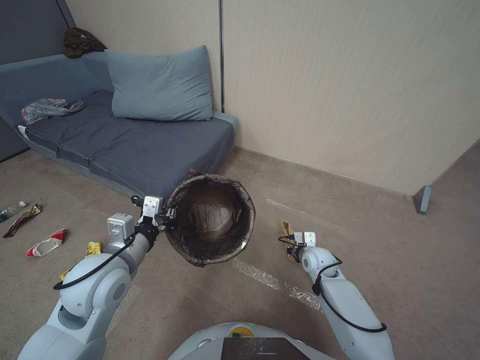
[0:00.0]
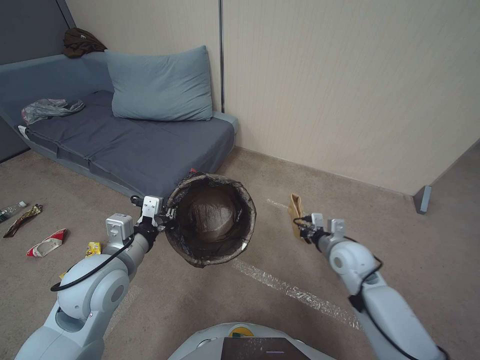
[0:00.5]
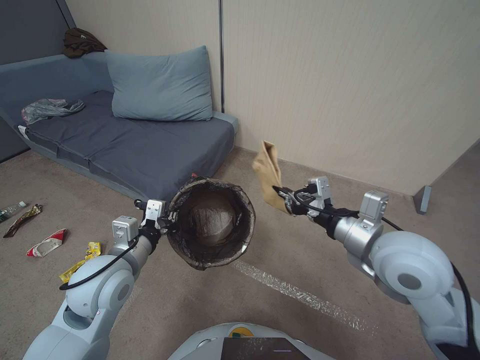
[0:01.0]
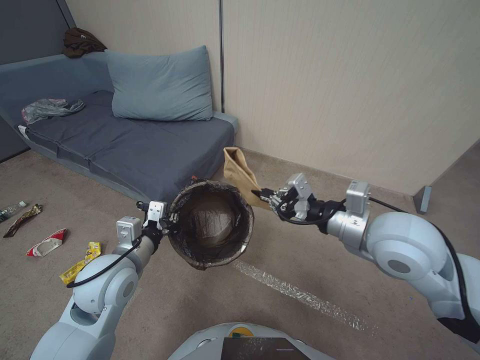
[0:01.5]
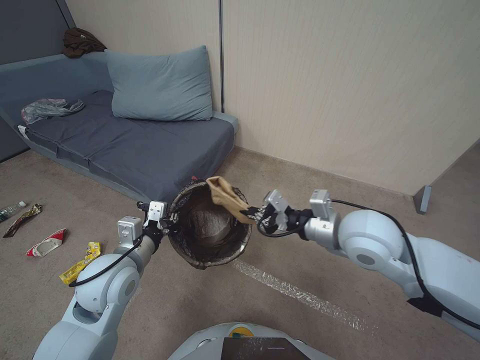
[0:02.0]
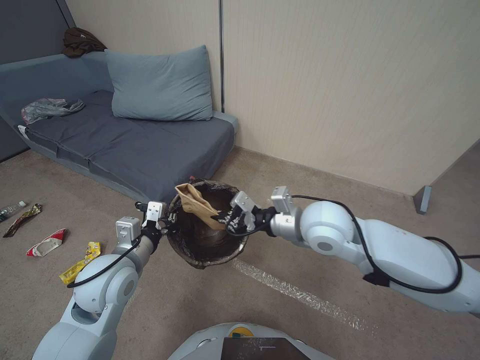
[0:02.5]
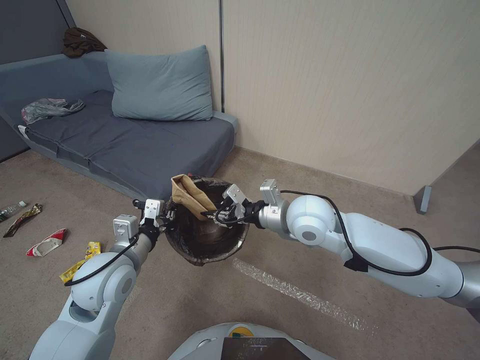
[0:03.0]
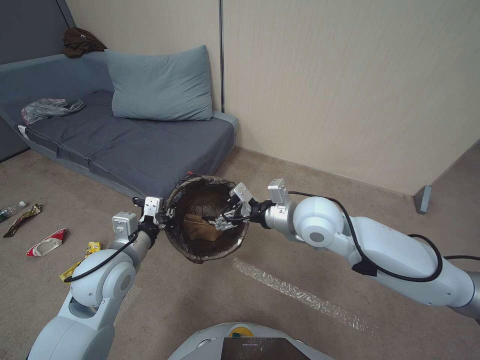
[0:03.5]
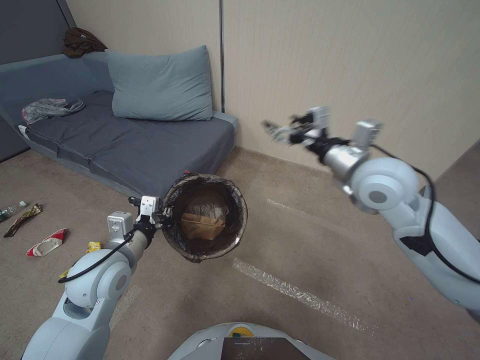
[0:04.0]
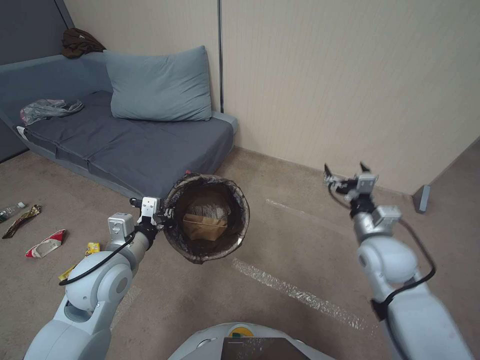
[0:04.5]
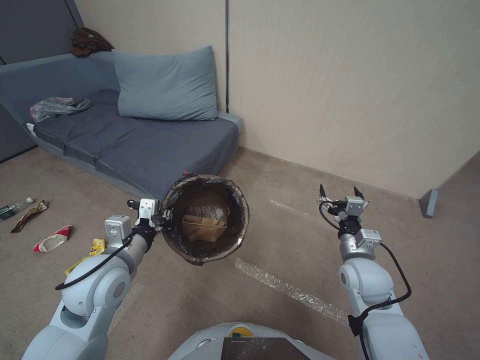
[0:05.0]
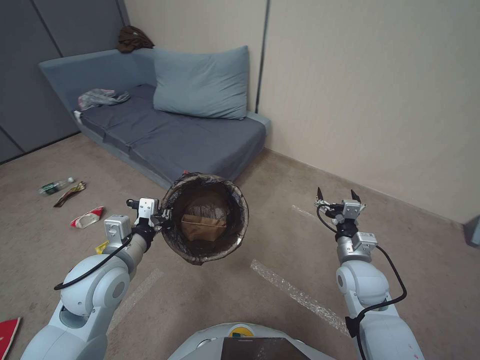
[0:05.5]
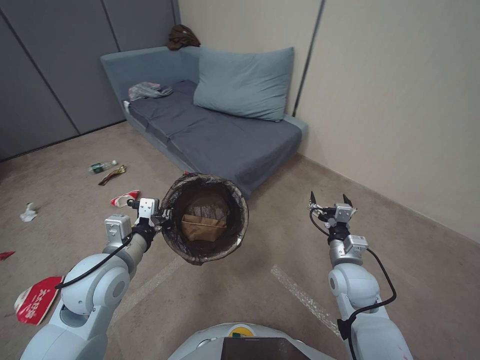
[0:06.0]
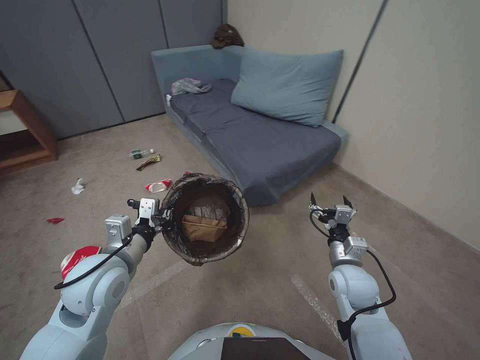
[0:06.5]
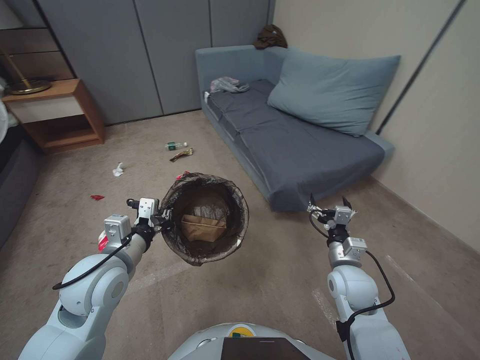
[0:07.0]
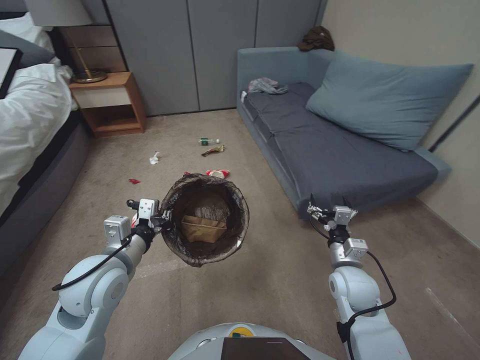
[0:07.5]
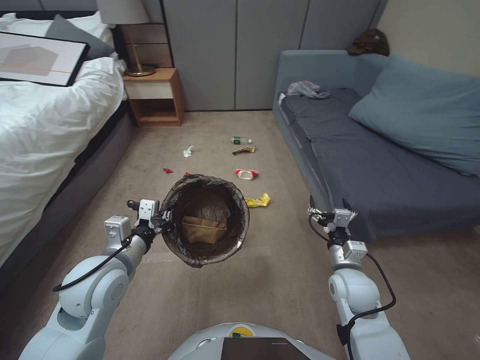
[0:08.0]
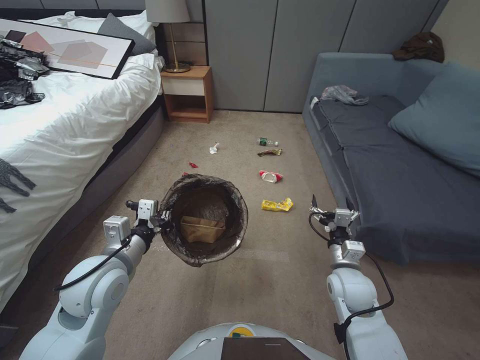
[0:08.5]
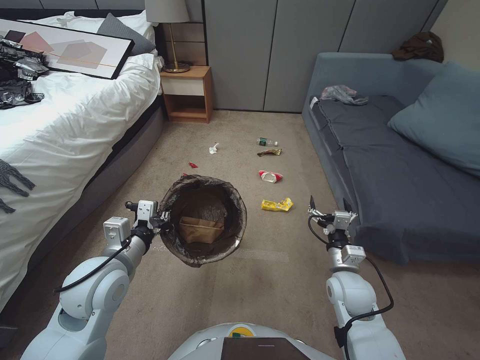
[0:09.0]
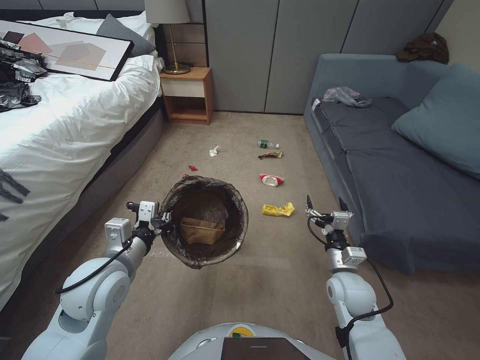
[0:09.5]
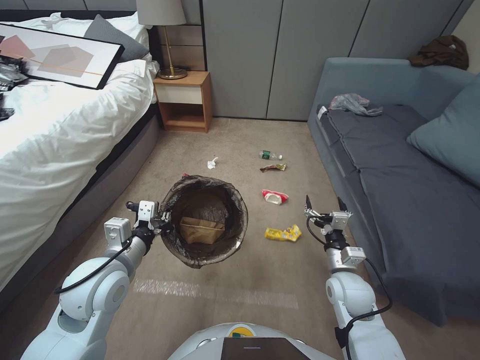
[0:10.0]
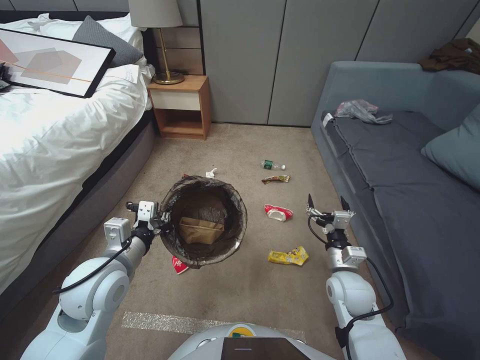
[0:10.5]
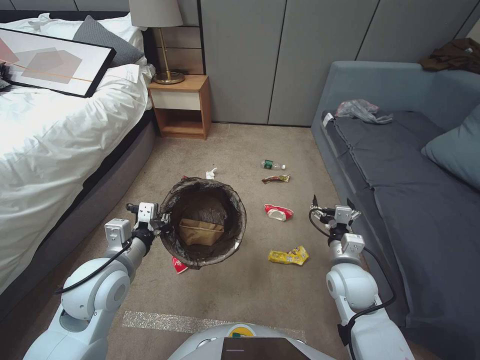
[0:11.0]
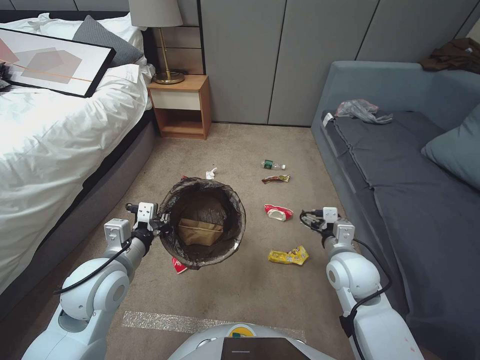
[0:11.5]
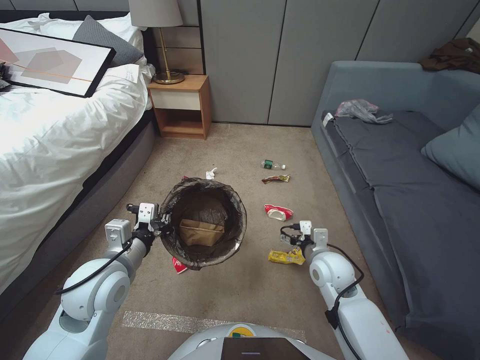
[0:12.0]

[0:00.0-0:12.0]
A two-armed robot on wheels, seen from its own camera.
Task of the whole recording: Pick up the trash bin, then pick up the garbage from the floor and place it into the trash bin.
0:00.0 to 0:02.0: The right gripper shifts about 30 cm upward.
0:02.0 to 0:04.0: The right gripper travels forward and to the left by roughly 10 cm, and opens its fingers.
0:04.0 to 0:06.0: The right gripper is displaced downward and to the right by roughly 25 cm.
0:10.0 to 0:12.0: The right gripper shifts by some 5 cm.

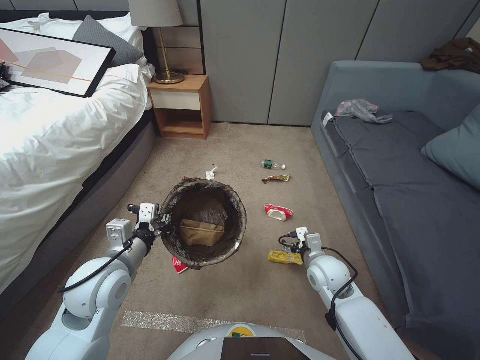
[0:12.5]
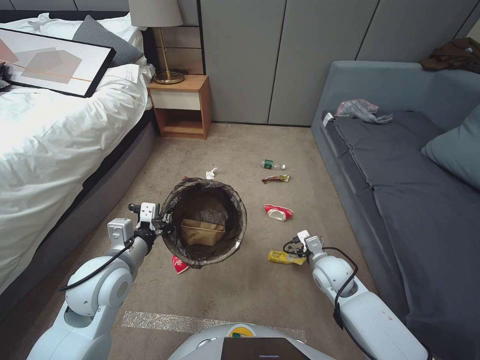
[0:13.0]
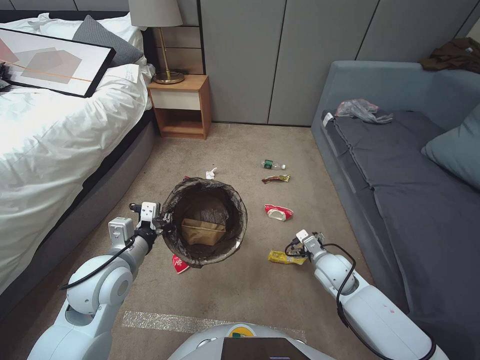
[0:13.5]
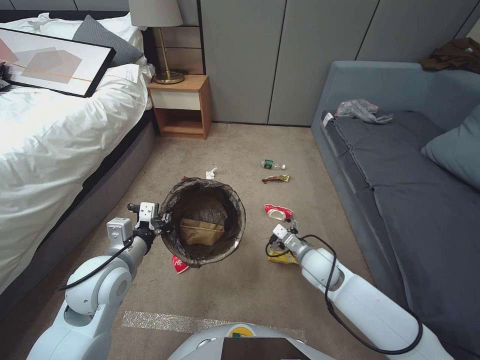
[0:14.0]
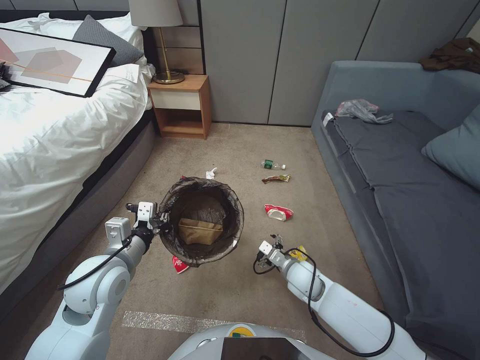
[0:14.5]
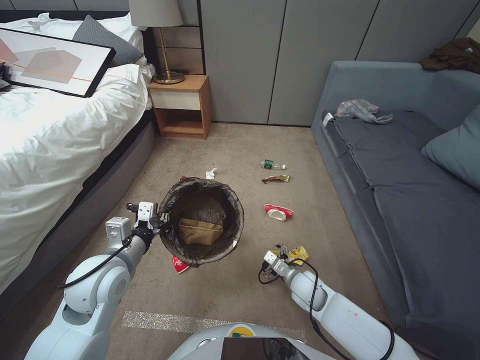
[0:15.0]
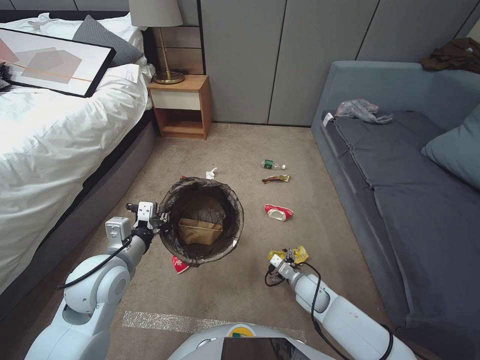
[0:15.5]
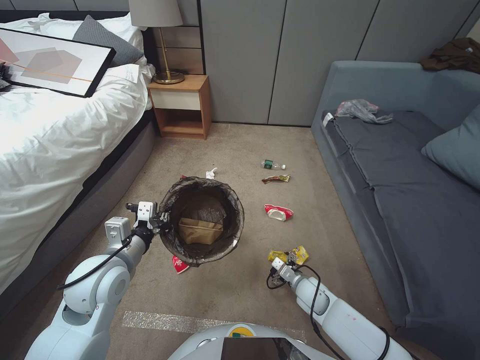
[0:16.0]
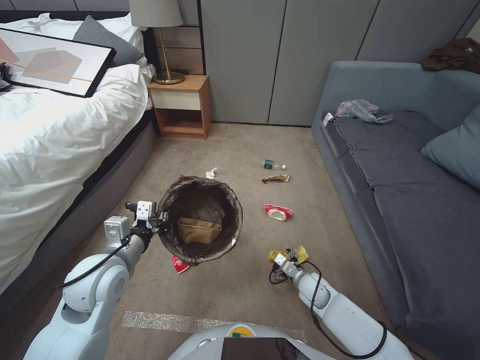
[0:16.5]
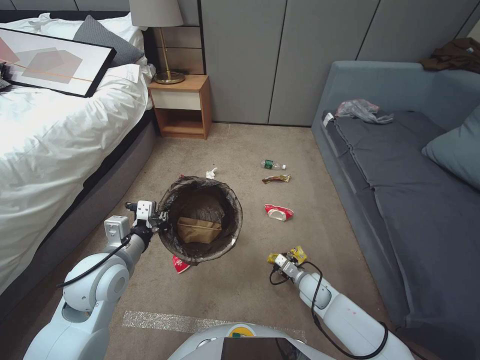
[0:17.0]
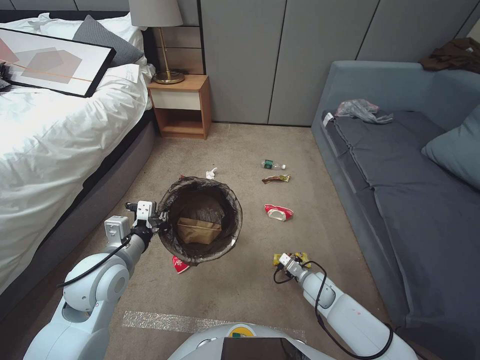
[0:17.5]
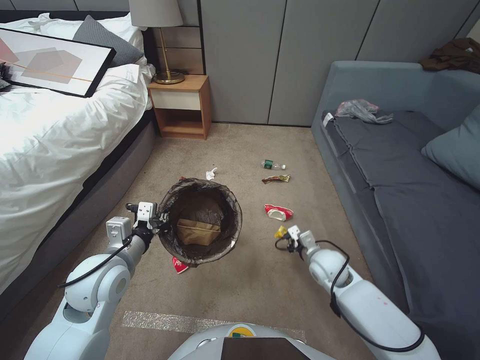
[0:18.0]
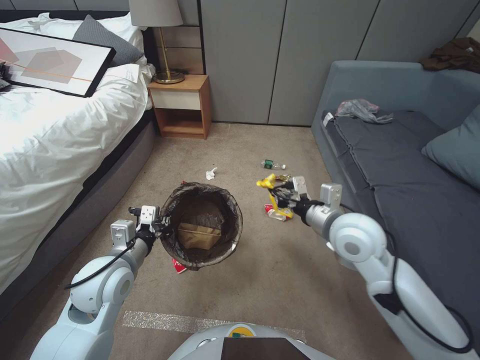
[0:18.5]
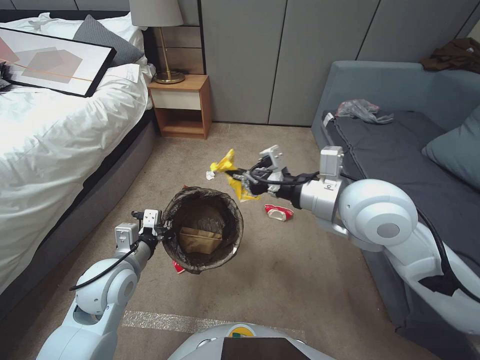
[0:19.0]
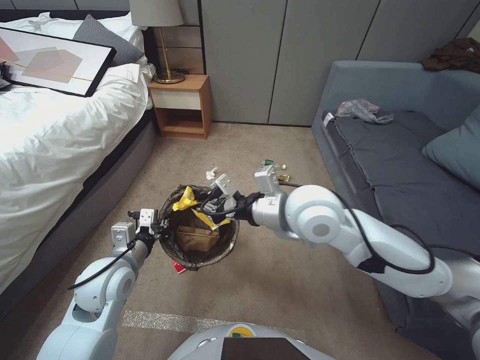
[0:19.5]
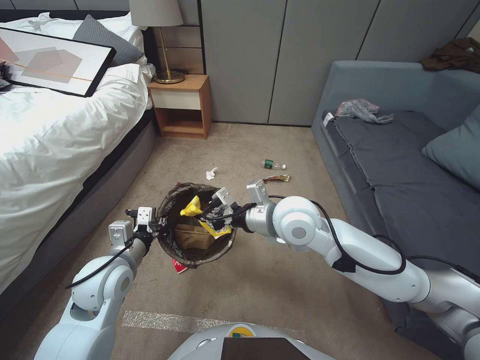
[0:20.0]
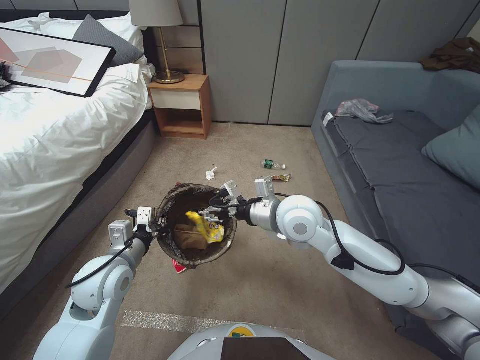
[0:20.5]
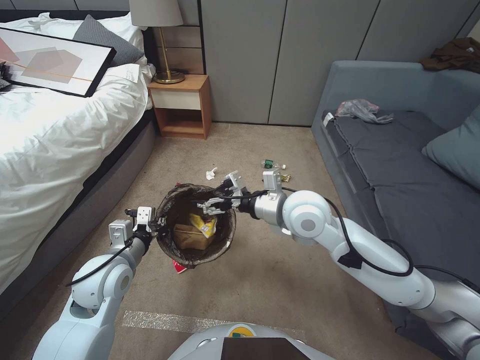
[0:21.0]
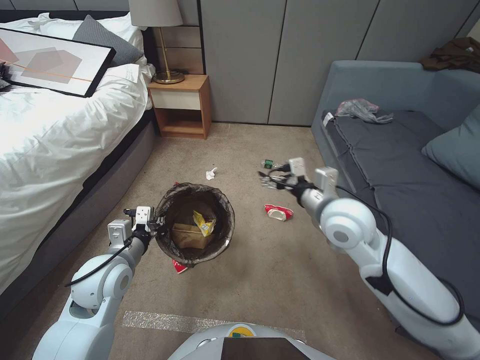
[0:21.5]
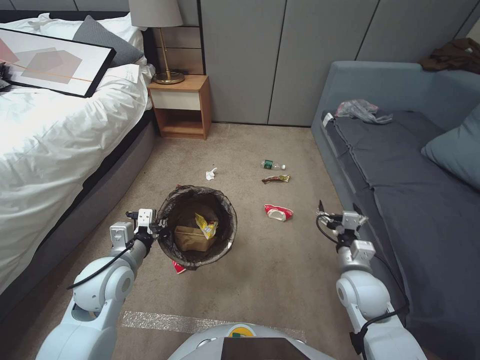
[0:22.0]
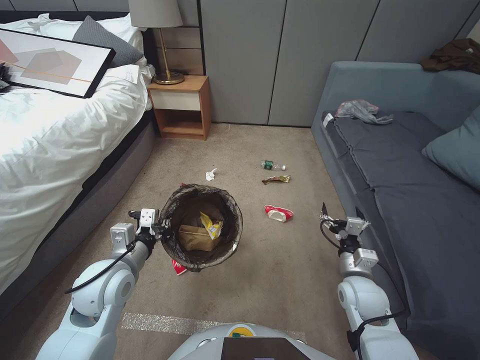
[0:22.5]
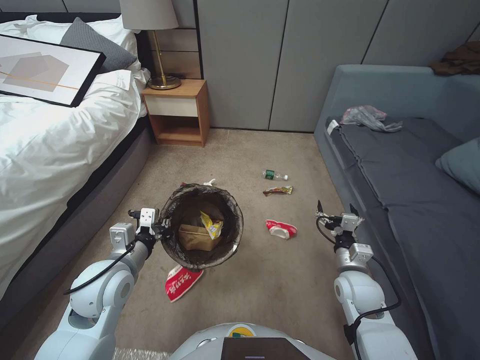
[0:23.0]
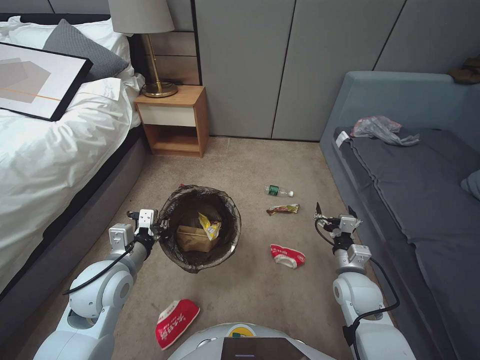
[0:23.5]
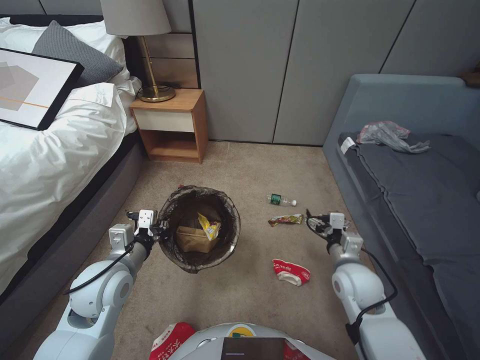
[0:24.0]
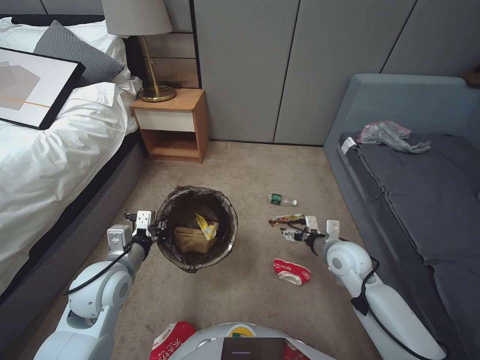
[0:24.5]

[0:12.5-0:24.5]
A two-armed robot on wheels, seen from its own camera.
Task of the whole recording: Pick up the trash bin, then pick up the garbage from the floor and place it into the trash bin.
0:12.5 to 0:14.5: The right gripper goes about 5 cm downward.
0:14.5 to 0:16.5: The right gripper is displaced downward and to the right by some 10 cm.
0:16.5 to 0:18.5: The right gripper is displaced upward by roughly 25 cm, and closes its fingers.
0:18.5 to 0:20.5: The right gripper shifts approximately 15 cm to the left and upward, and opens.
0:20.5 to 0:22.5: The right gripper goes about 30 cm downward, to the right and backward, and opens up.
0:22.5 to 0:24.5: The right gripper travels upward and forward by approximately 10 cm.

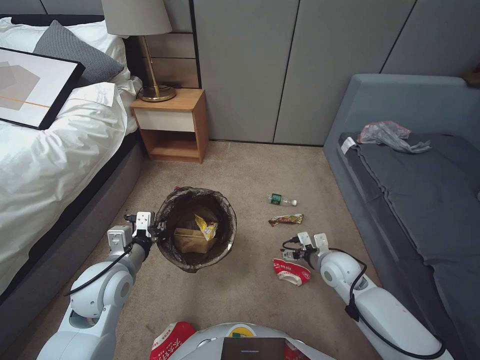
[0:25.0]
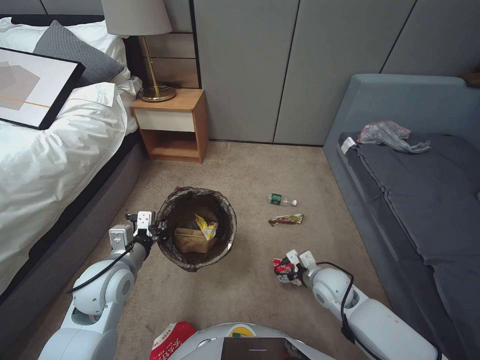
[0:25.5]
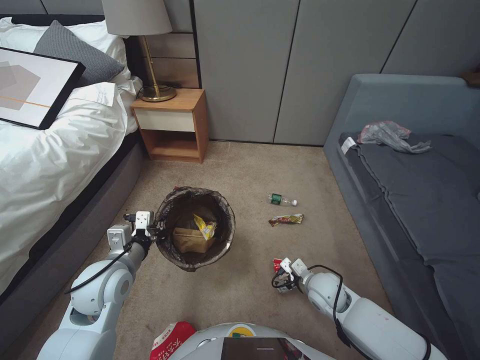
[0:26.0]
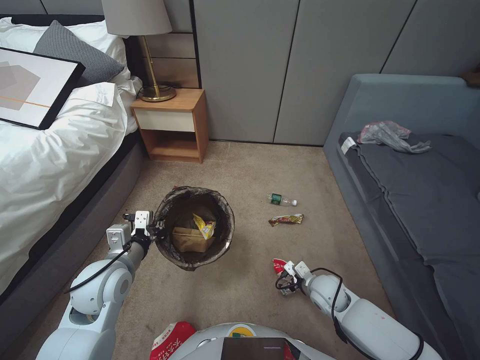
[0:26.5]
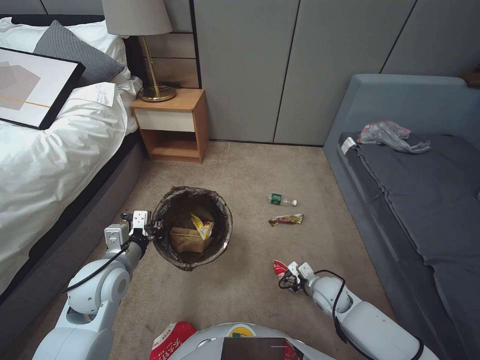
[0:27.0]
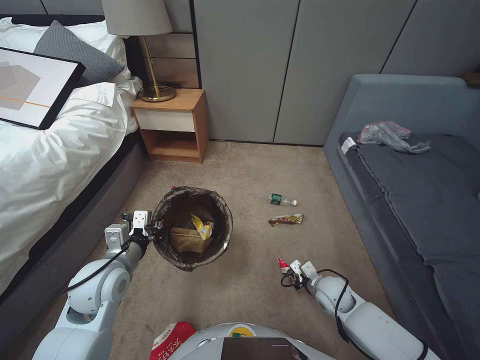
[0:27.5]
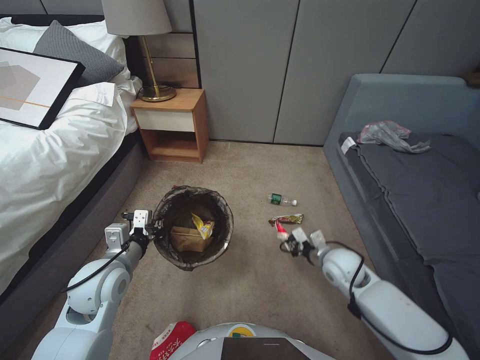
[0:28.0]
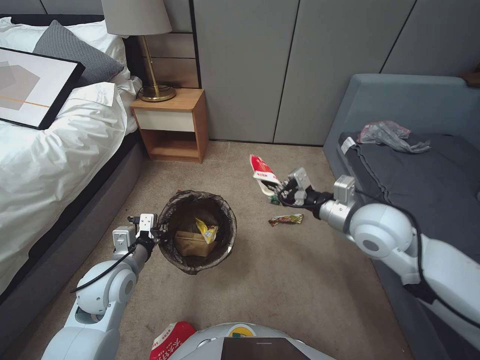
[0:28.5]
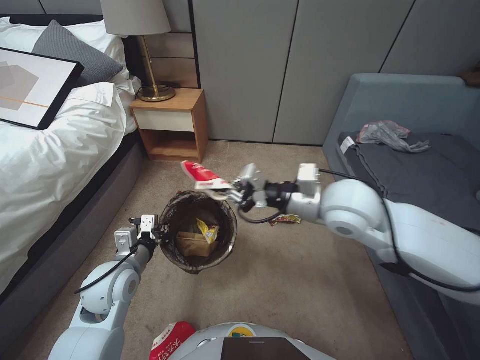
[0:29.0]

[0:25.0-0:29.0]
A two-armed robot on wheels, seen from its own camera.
Task of the whole recording: Pick up the trash bin, then pick up the garbage from the floor and place it into the trash bin.
0:25.0 to 0:27.0: The right gripper travels downward by roughly 10 cm, and closes up.
0:27.0 to 0:29.0: The right gripper goes approximately 35 cm upward, and closes its fingers.
